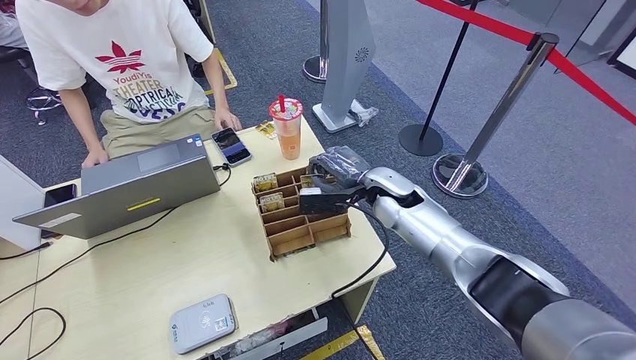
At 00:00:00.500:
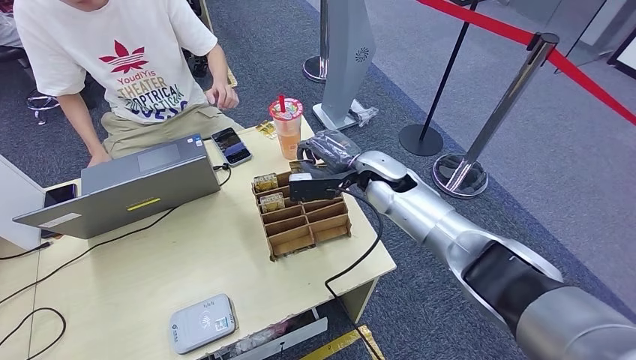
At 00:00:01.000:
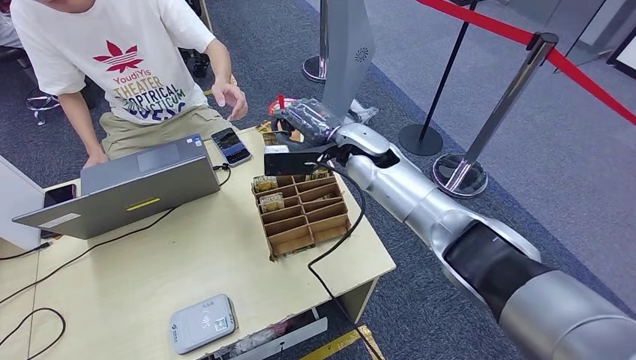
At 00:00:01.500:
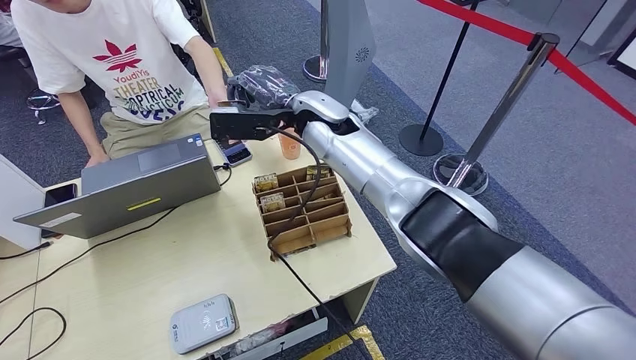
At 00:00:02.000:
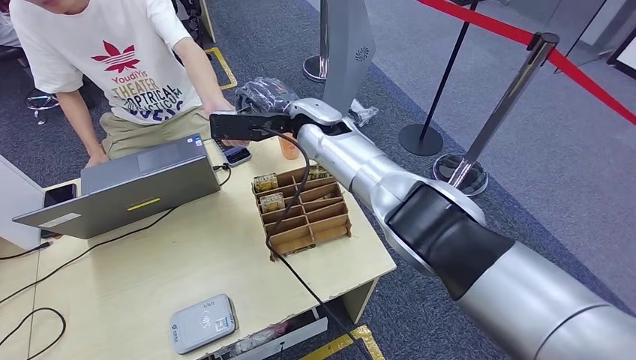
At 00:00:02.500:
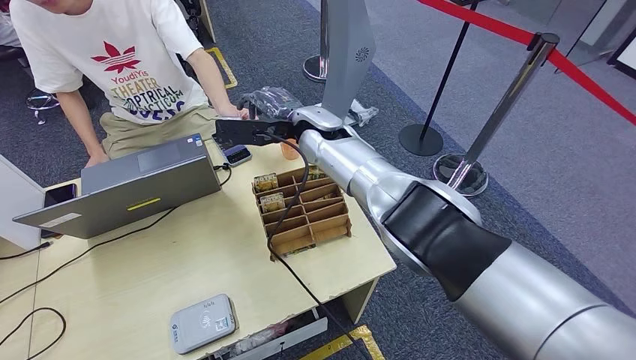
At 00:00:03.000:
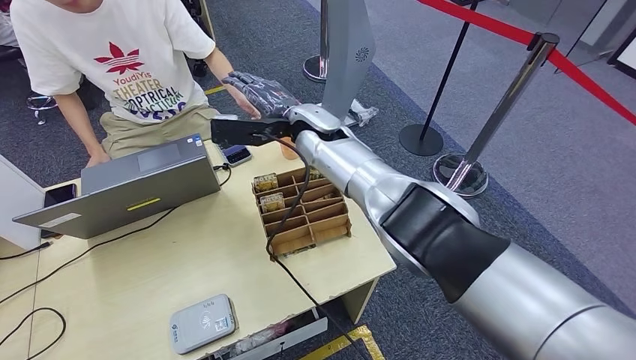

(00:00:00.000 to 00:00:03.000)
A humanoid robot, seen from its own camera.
Step, 00:00:00.000 - 00:00:03.000: Hand the room key to the person.
00:00:01.500 - 00:00:03.000: The hands stay close to where they were, moving slightly.

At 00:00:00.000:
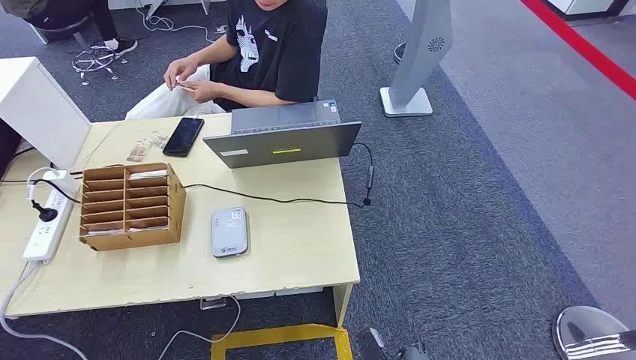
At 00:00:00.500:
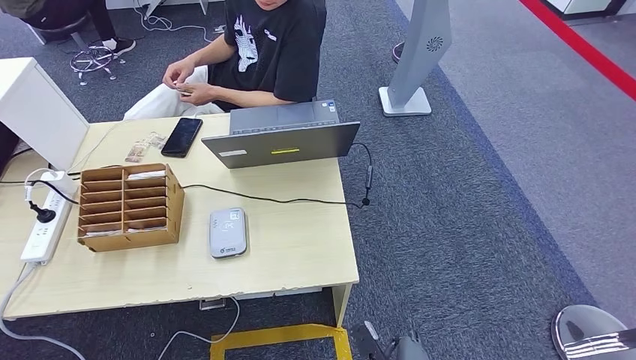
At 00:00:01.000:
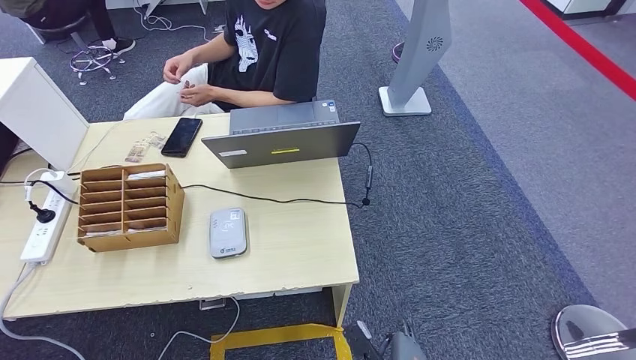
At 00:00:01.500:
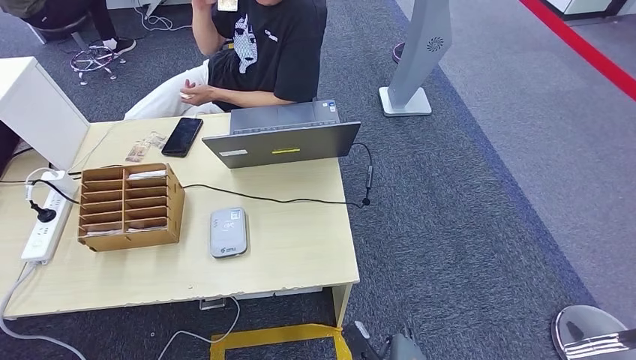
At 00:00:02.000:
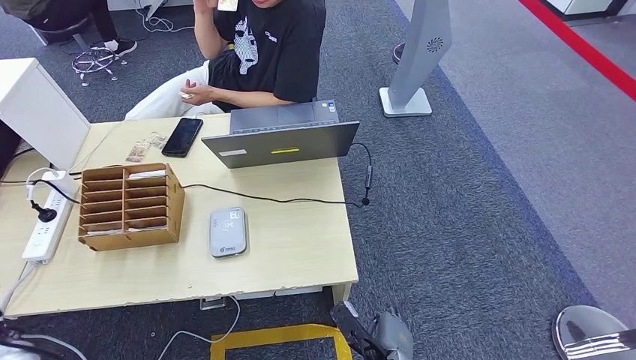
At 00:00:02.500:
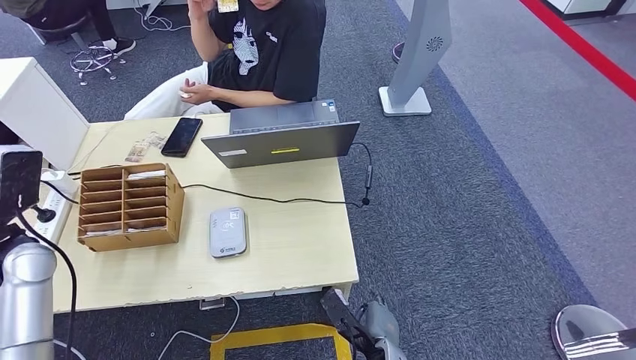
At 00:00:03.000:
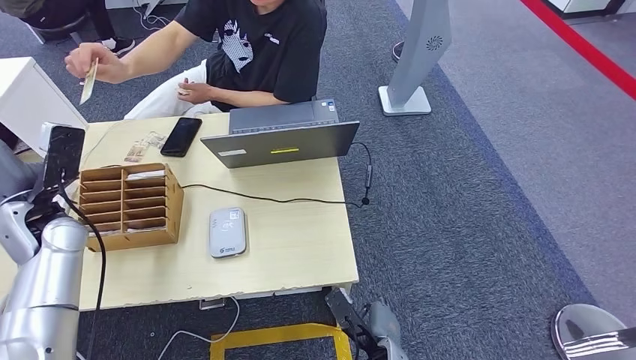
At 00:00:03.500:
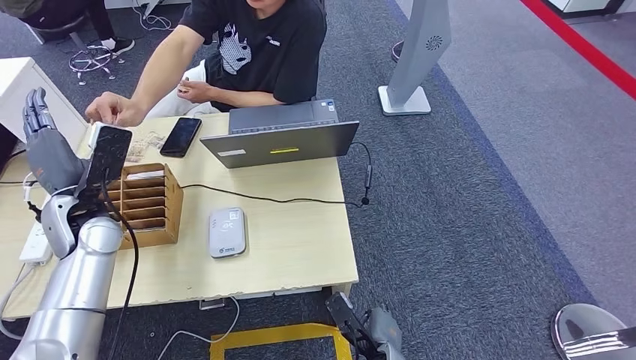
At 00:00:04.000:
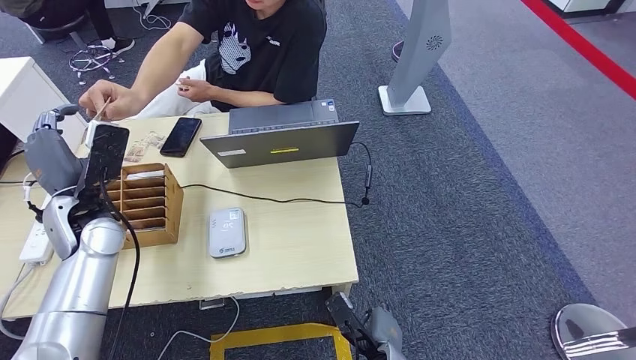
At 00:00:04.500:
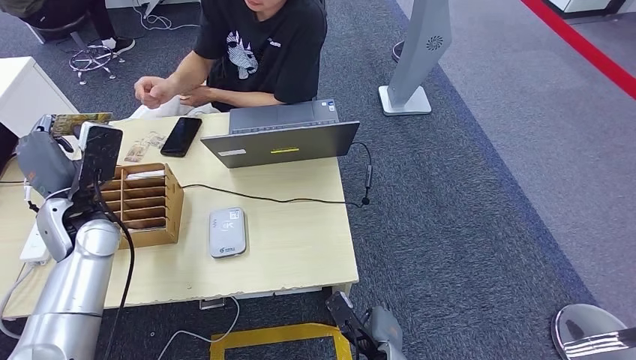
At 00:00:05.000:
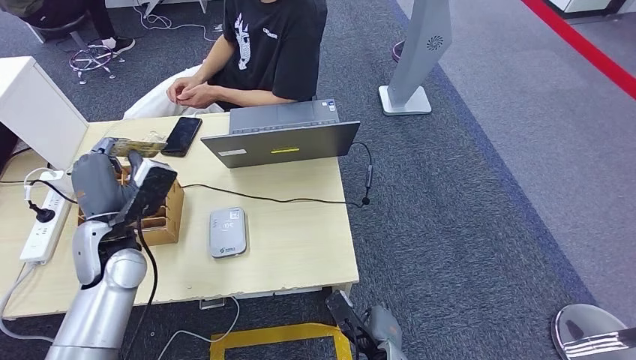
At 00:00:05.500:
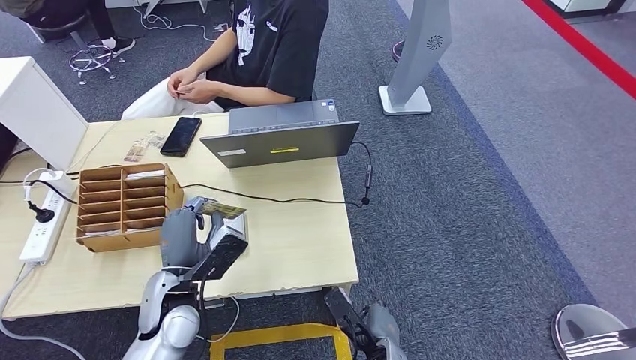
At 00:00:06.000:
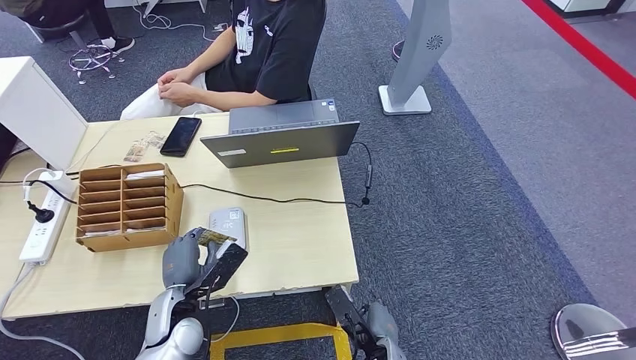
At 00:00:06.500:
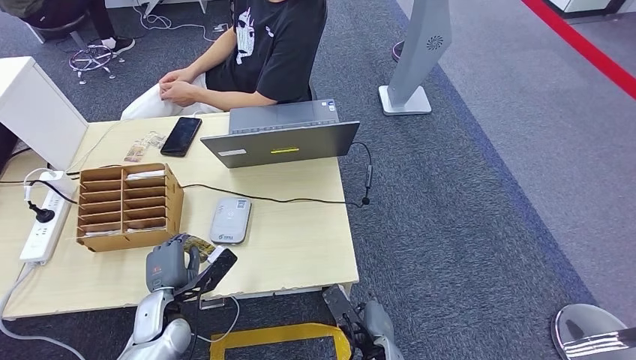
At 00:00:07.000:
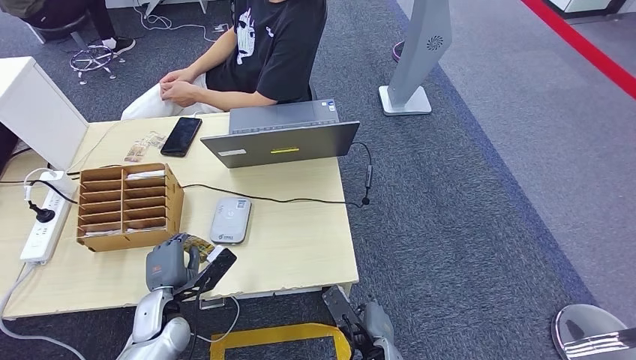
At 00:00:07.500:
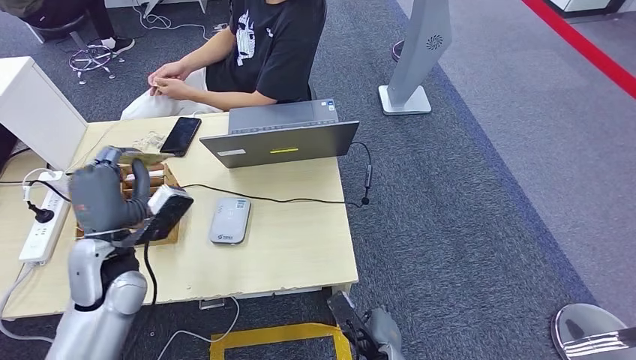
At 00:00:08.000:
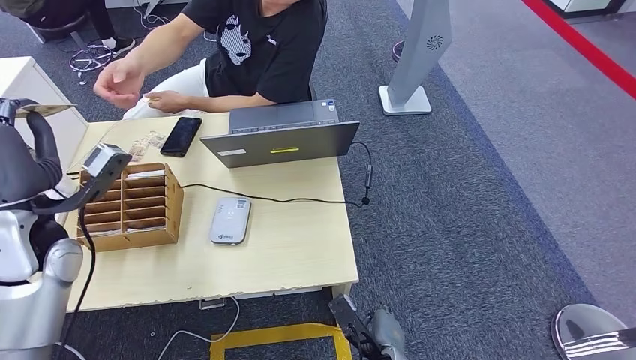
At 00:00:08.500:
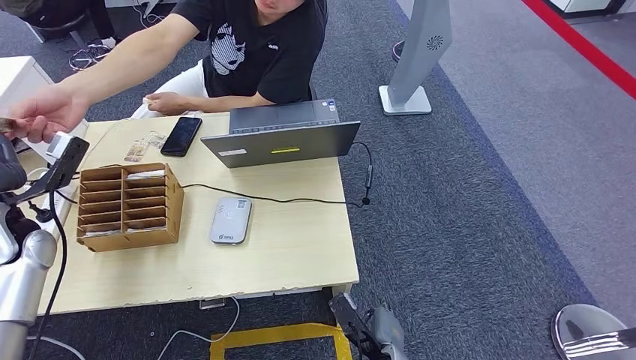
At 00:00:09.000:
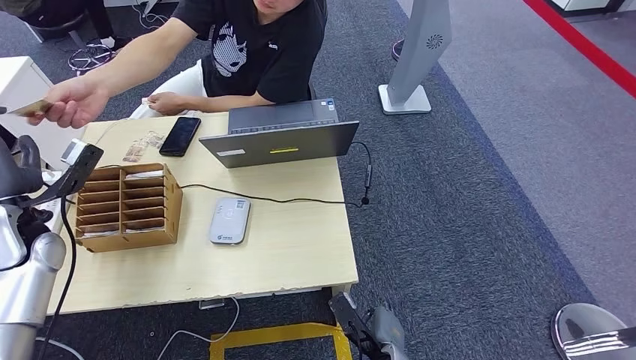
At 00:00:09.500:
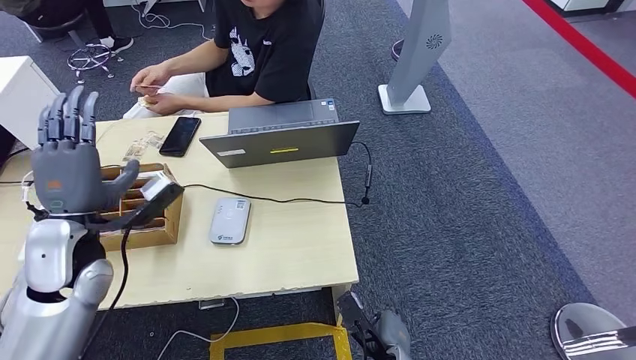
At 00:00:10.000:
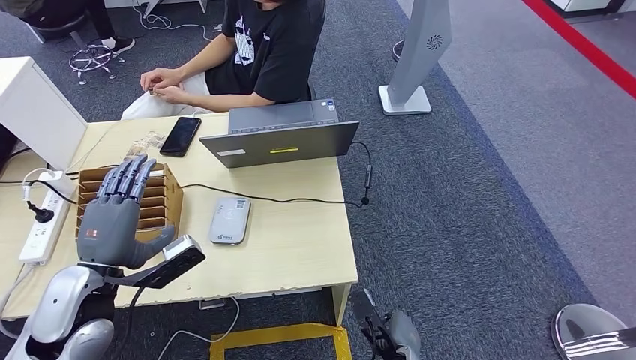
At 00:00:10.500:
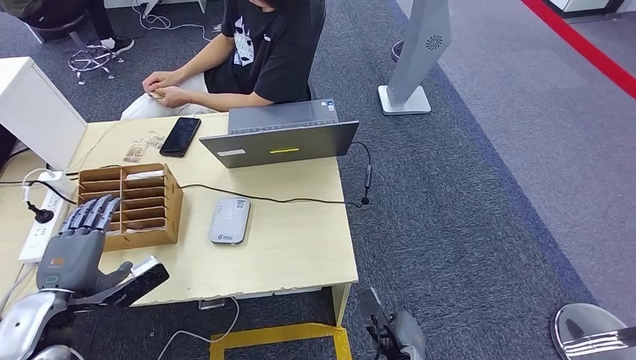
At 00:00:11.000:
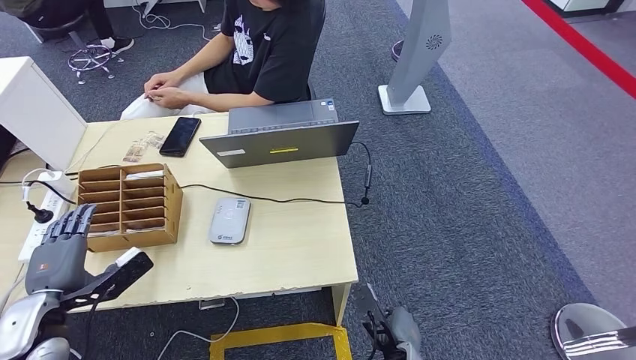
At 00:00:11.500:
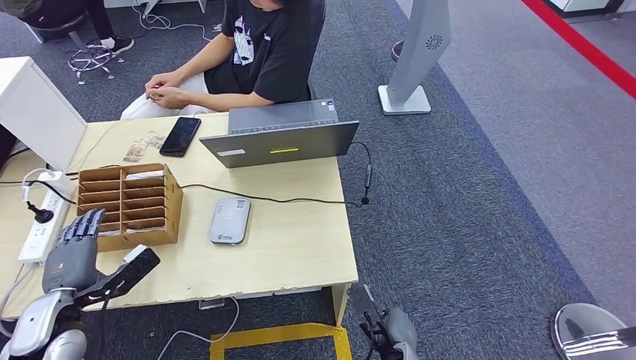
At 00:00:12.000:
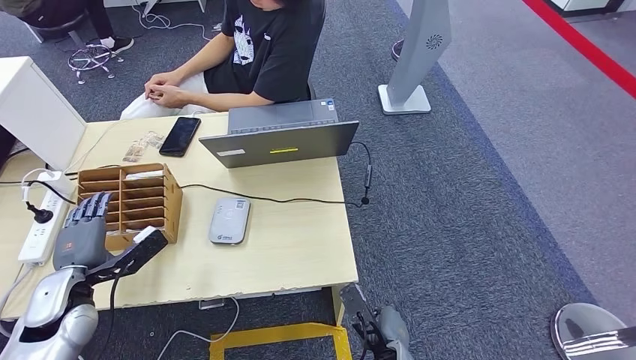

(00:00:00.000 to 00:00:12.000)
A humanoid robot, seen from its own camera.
Step, 00:00:00.000 - 00:00:04.000: Take the ID card from the person's hand.
Step, 00:00:04.500 - 00:00:06.000: Place the ID card on the card reader.
Step, 00:00:06.500 - 00:00:09.000: Hand the ID card to the person.
00:00:02.000 - 00:00:04.000: The left hand shifts some 20 cm forward and to the right.
00:00:04.000 - 00:00:06.000: The left hand goes about 25 cm downward, backward and to the right.
00:00:06.000 - 00:00:08.000: The left hand goes about 25 cm upward, to the left and forward.
00:00:08.000 - 00:00:10.000: The left hand is displaced backward and downward by some 10 cm.
00:00:10.000 - 00:00:12.000: The left hand is displaced to the left and downward by about 10 cm.

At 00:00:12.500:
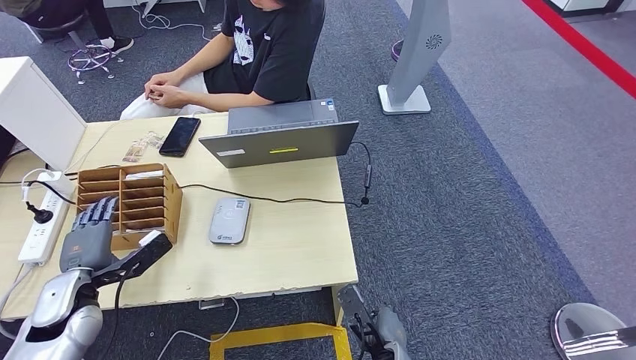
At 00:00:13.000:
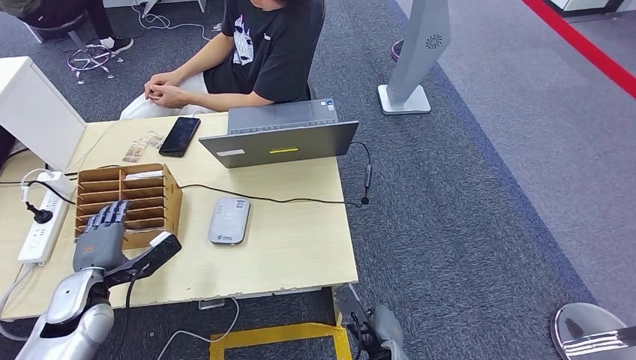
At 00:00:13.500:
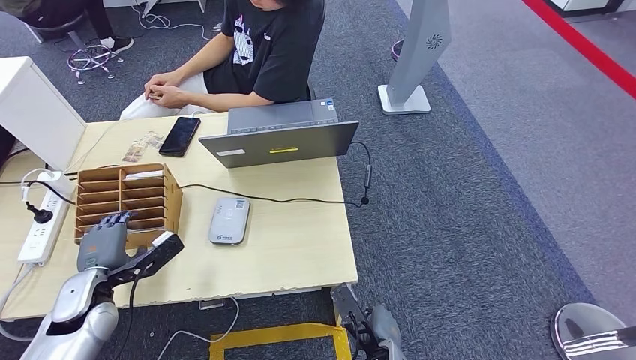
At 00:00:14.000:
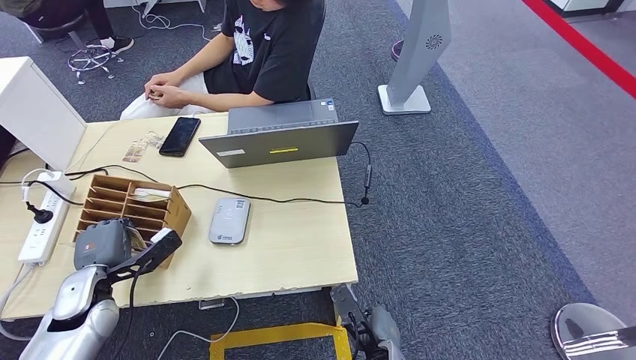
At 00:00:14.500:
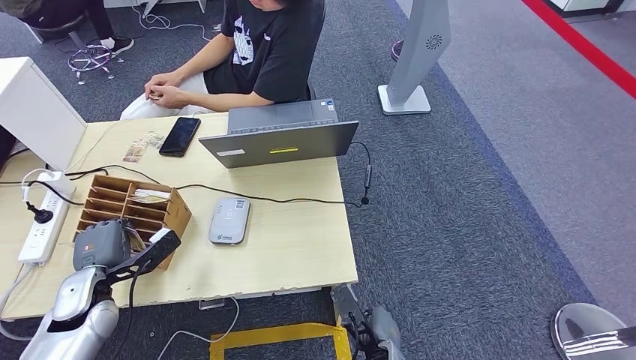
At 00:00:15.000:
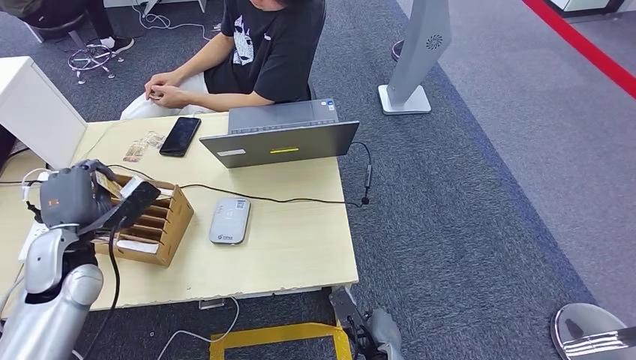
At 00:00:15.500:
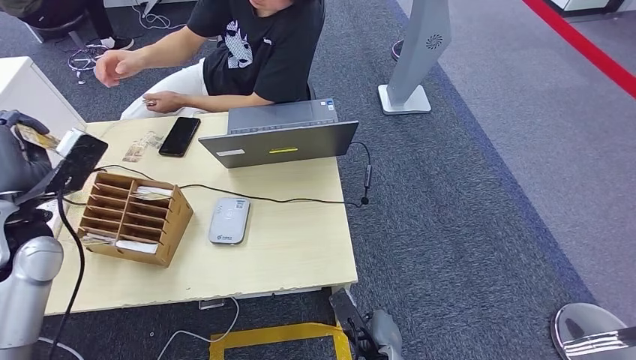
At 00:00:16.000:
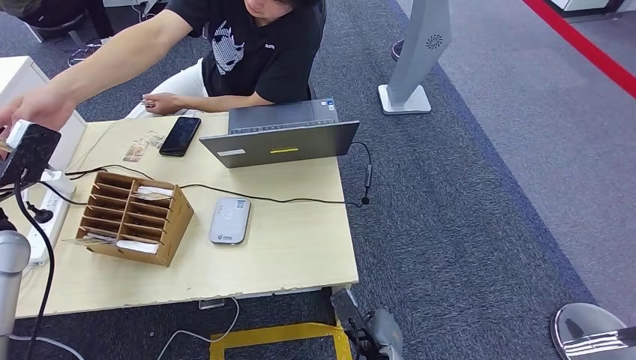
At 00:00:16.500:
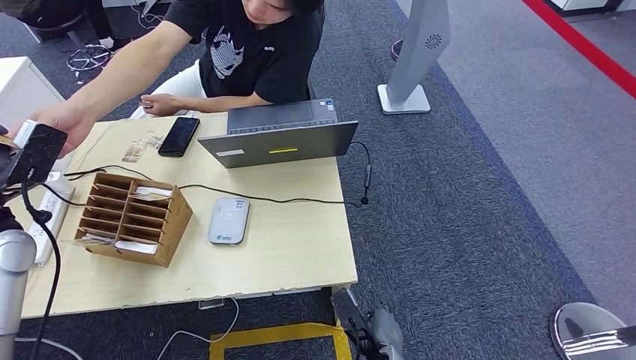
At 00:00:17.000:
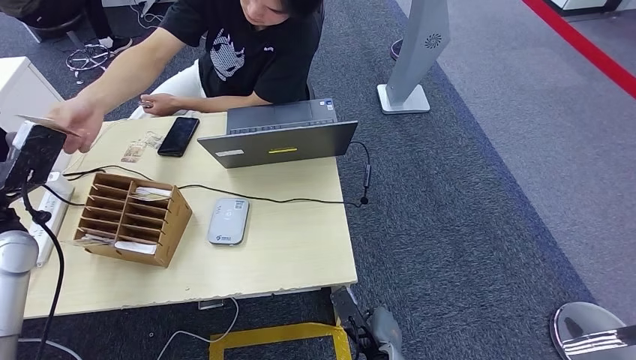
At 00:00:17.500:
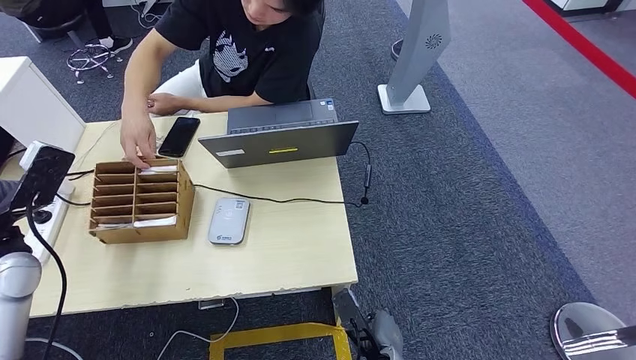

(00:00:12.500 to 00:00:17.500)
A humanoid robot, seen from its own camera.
Step, 00:00:12.500 - 00:00:15.000: Pick up the room key from the key card box.
Step, 00:00:15.500 - 00:00:17.500: Hand the room key to the person.
00:00:12.500 - 00:00:15.000: The left hand moves upward, some 5 cm.
